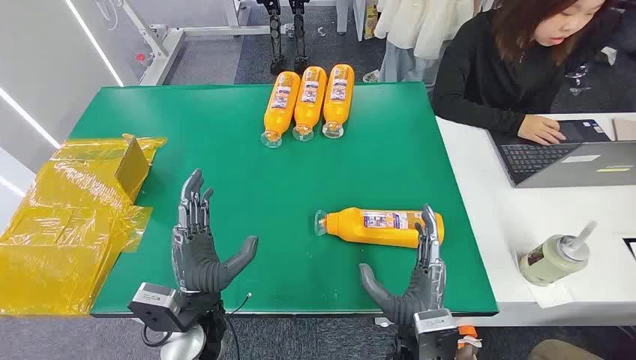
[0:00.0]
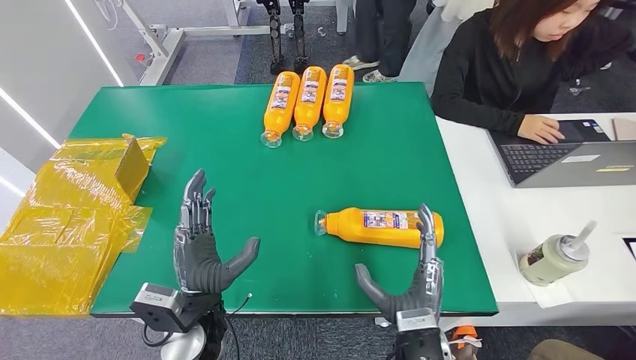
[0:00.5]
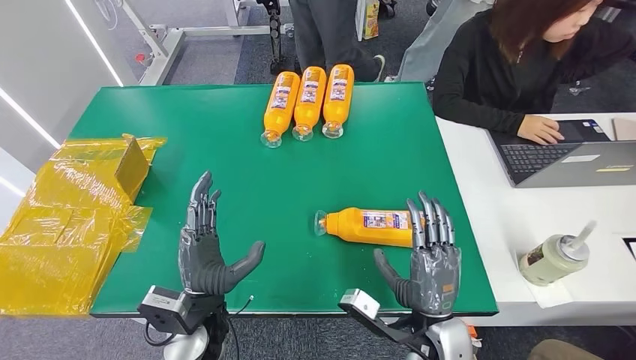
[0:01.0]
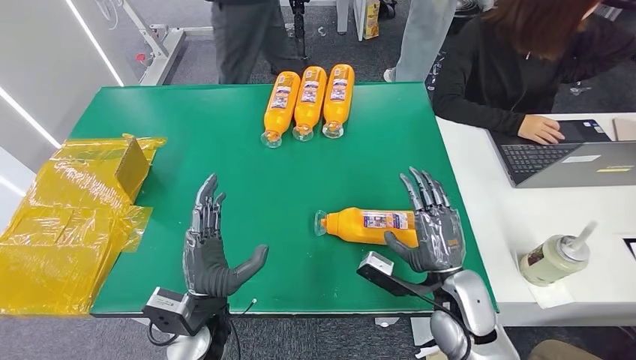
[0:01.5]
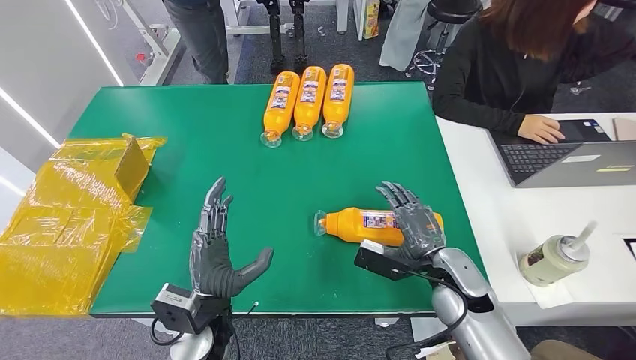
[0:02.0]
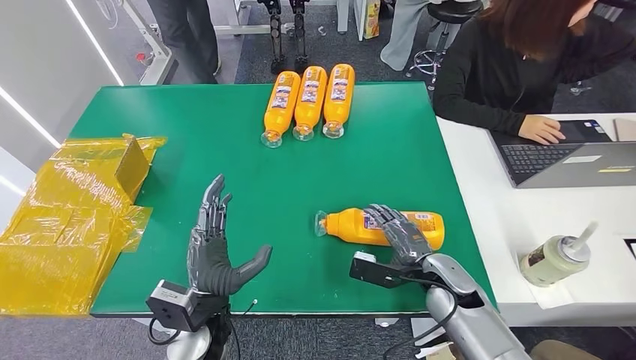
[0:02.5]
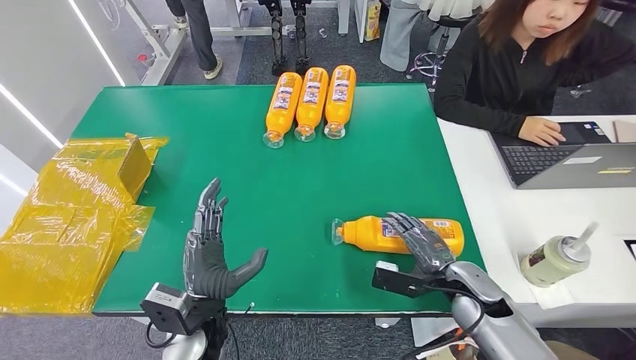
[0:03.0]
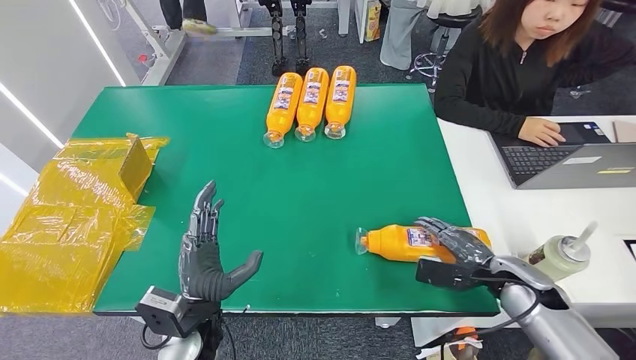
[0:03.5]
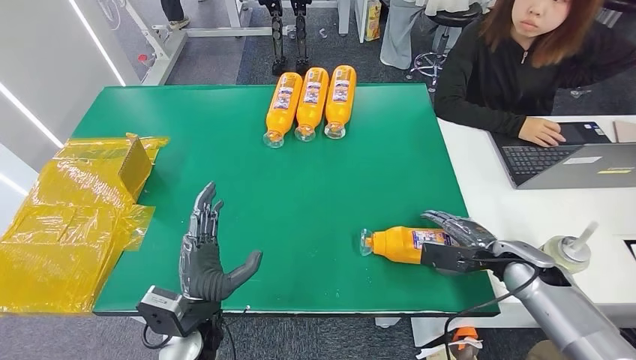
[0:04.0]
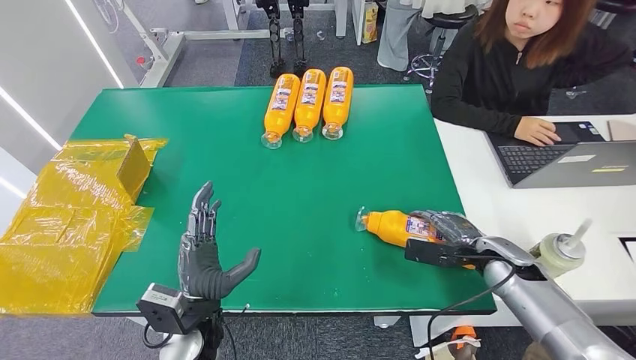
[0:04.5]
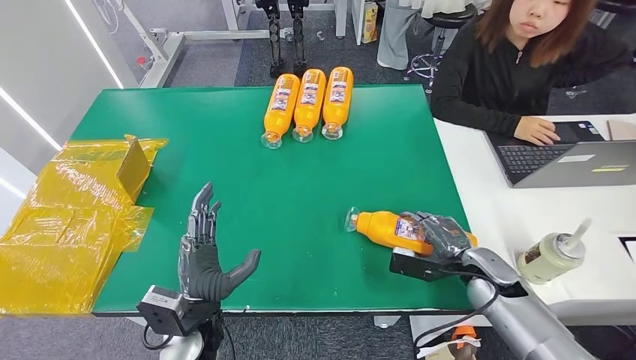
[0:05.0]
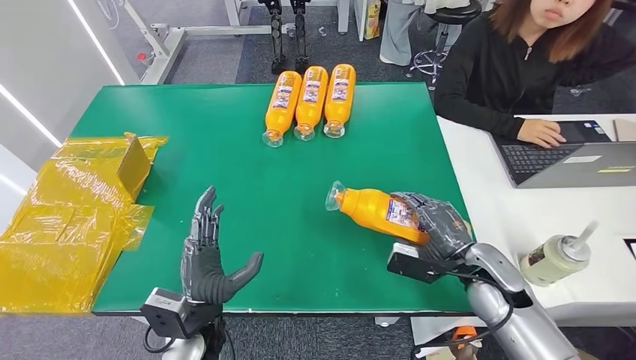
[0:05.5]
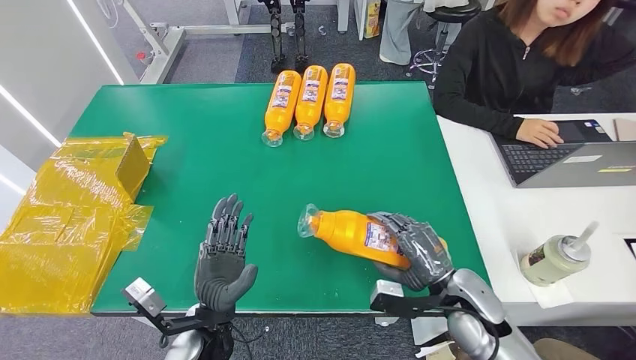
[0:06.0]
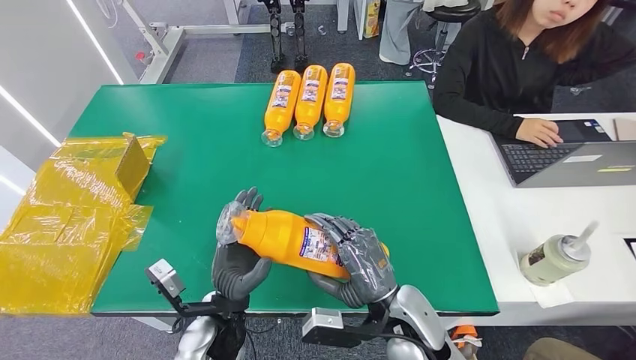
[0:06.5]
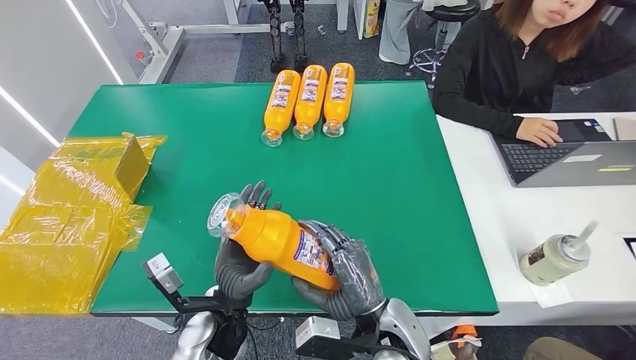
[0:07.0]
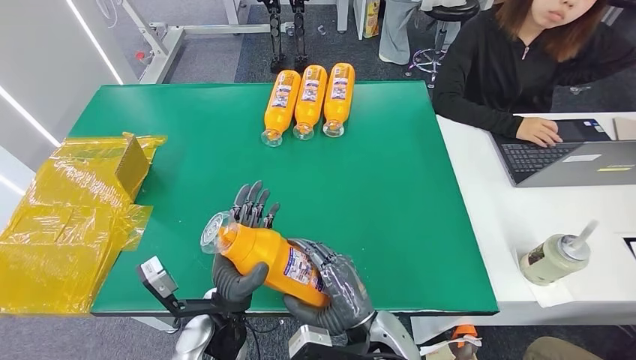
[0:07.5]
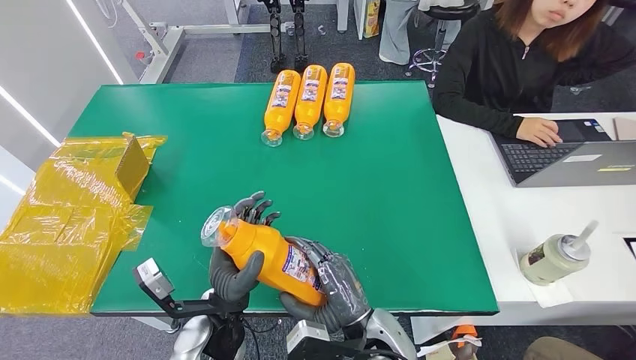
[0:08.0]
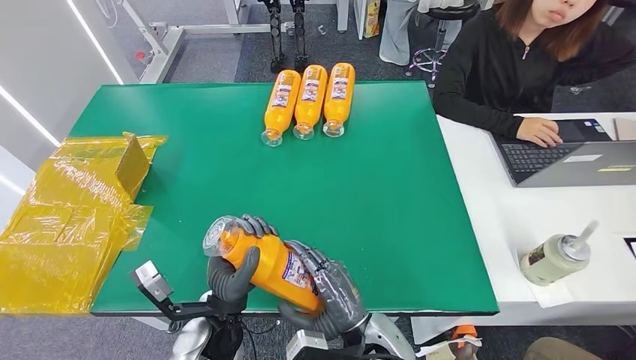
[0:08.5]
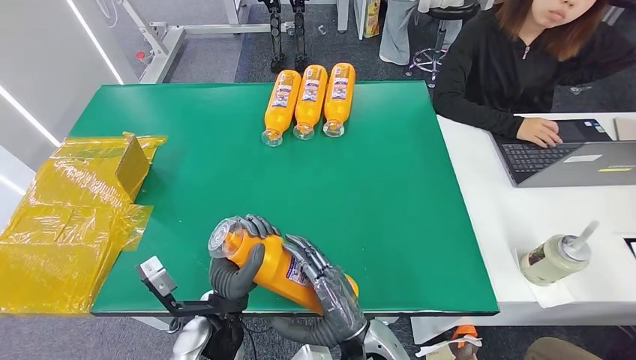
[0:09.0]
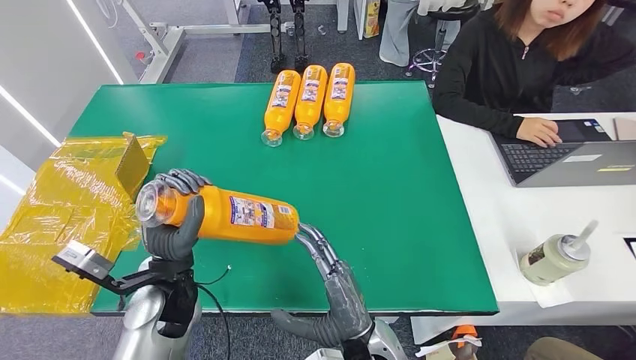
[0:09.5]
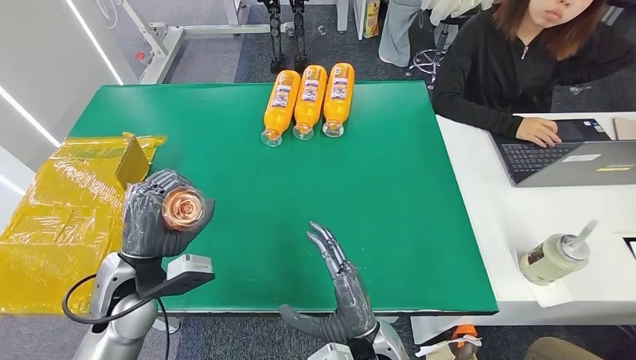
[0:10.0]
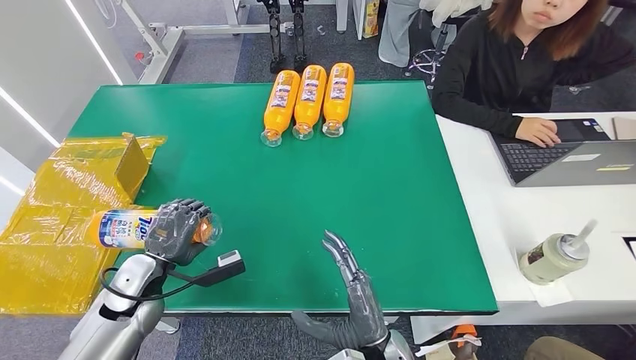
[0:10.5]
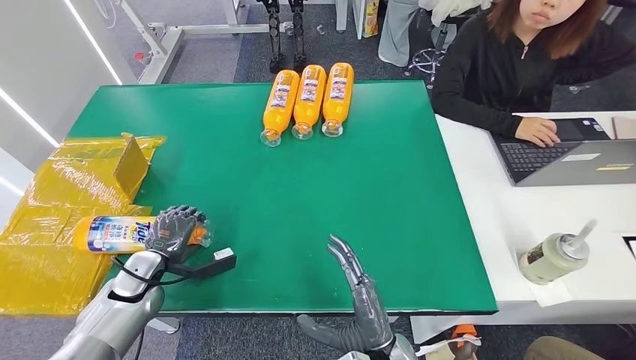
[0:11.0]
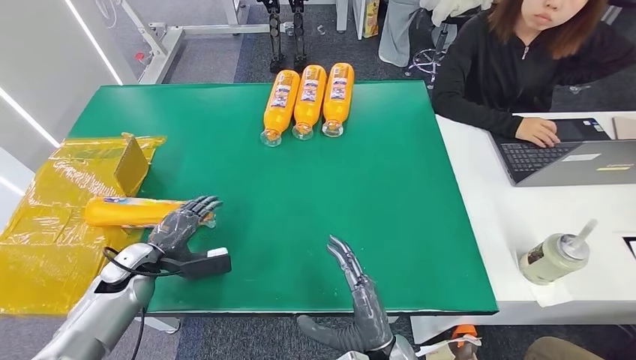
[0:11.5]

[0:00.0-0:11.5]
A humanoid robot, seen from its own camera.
Step, 0:00.0 to 0:05.5: Pick up the bottle from the table.
Step, 0:06.0 to 0:11.5: Turn the bottle to the front side.
0:06.0 to 0:07.5: The right hand moves to the left and backward, approximately 20 cm.
0:07.5 to 0:09.5: The left hand heads to the left and forward, covering approximately 10 cm.
0:09.5 to 0:11.5: The left hand is displaced to the left and downward by about 20 cm.

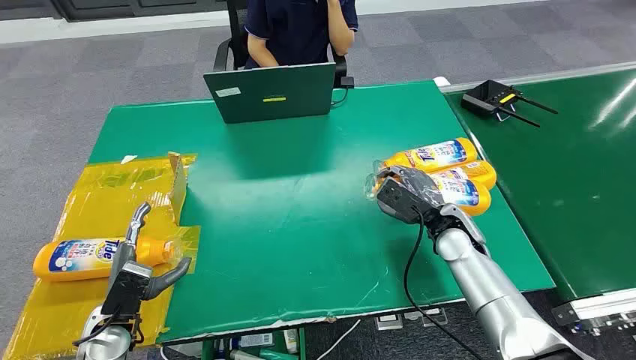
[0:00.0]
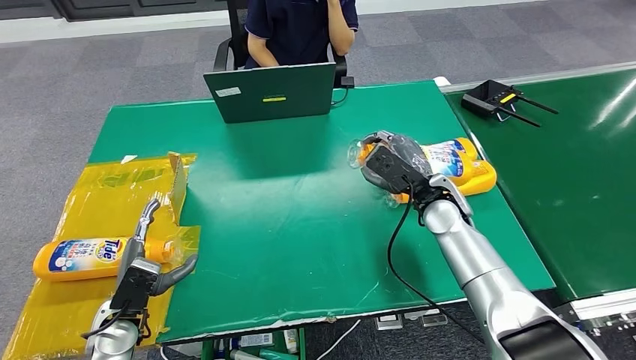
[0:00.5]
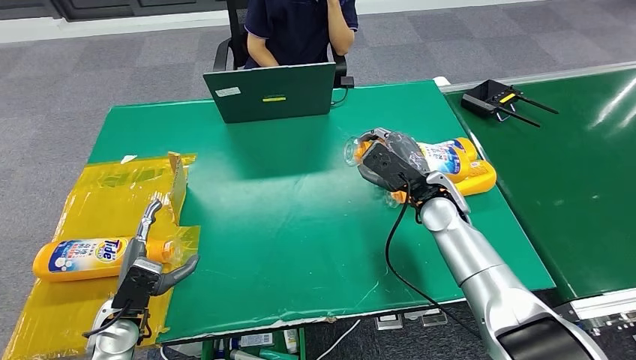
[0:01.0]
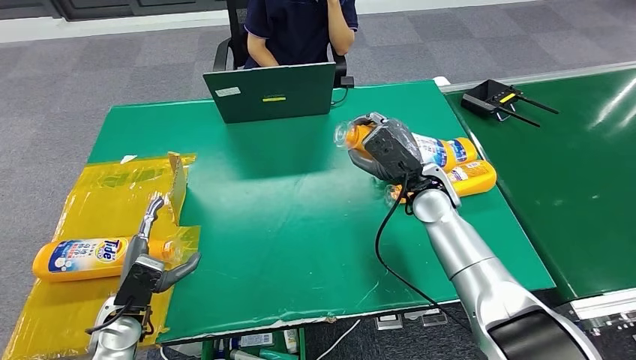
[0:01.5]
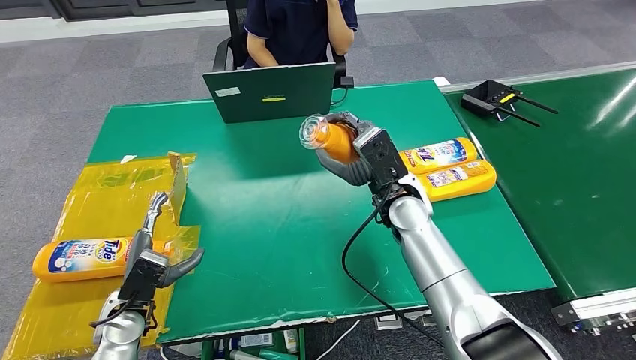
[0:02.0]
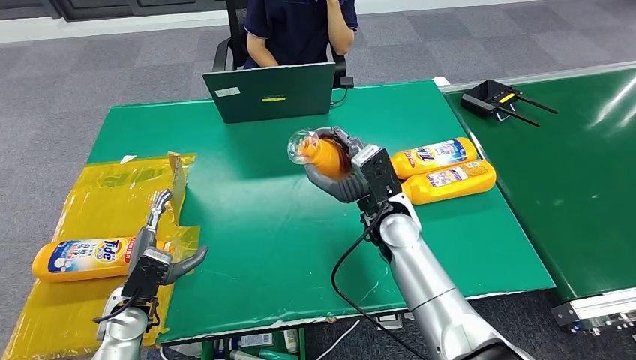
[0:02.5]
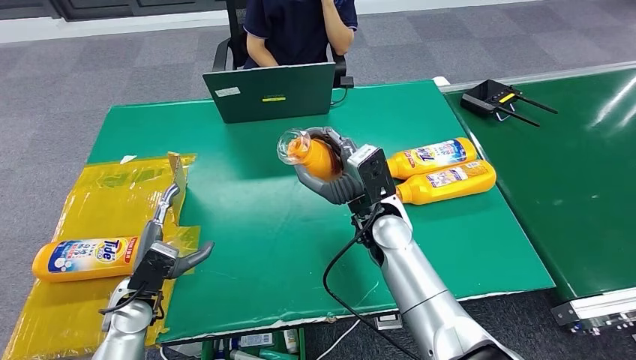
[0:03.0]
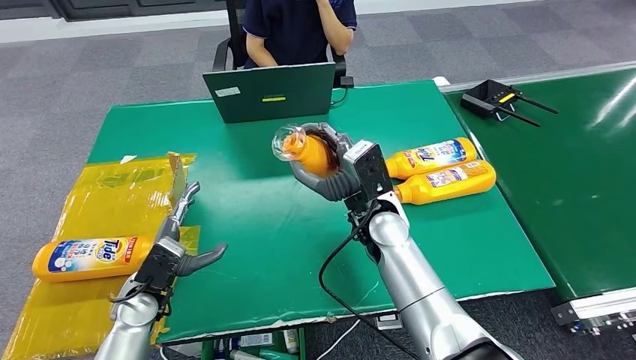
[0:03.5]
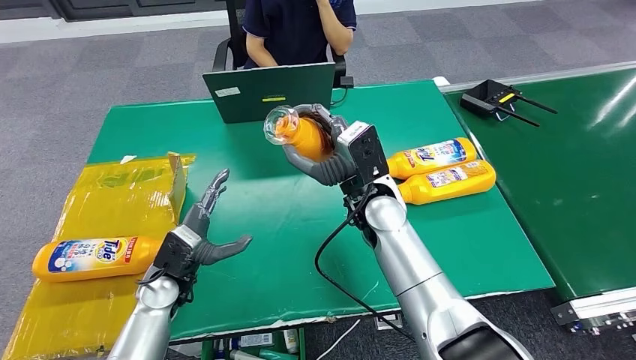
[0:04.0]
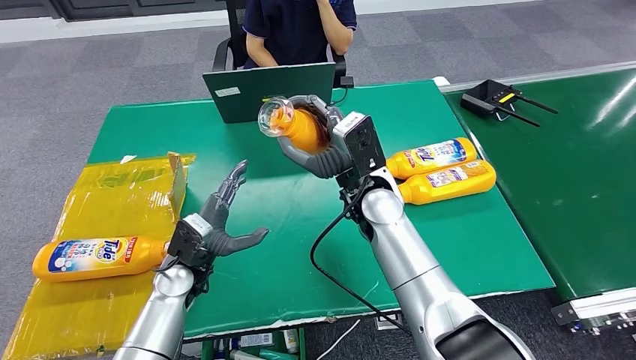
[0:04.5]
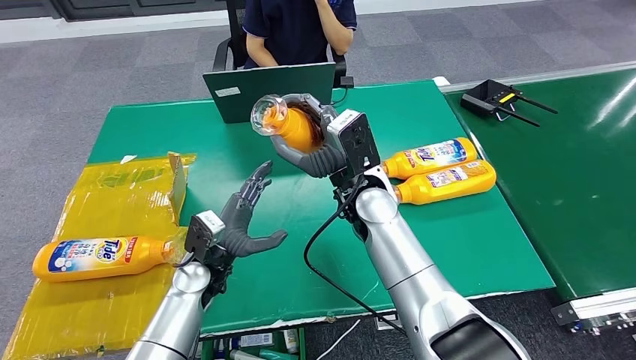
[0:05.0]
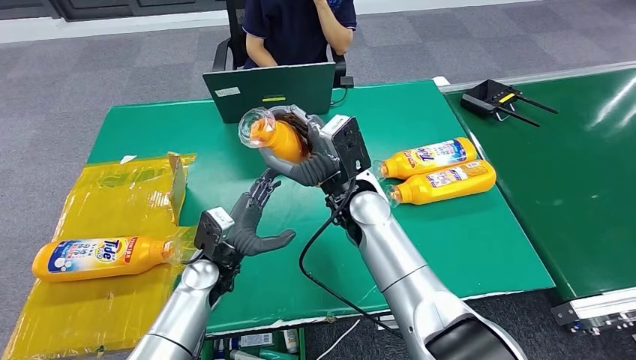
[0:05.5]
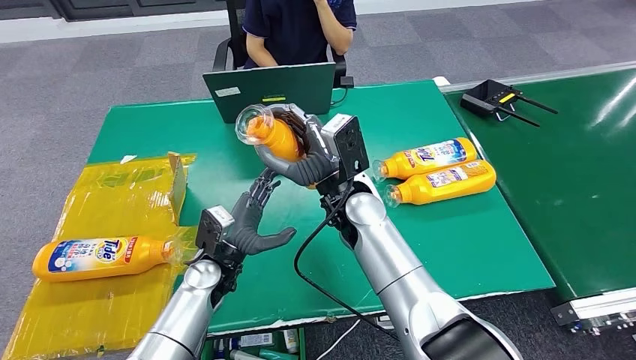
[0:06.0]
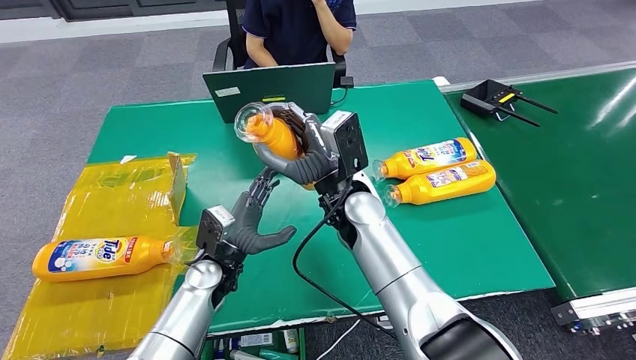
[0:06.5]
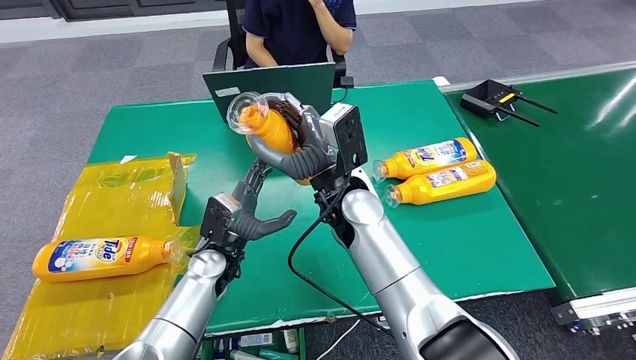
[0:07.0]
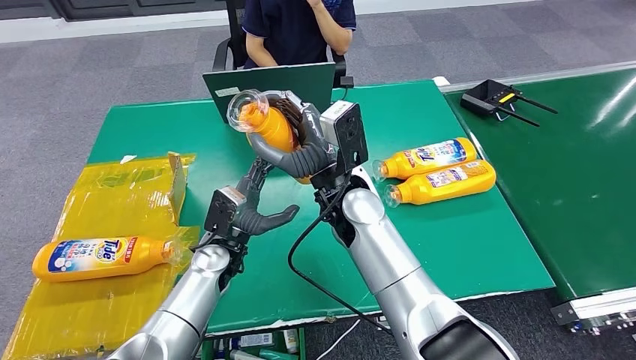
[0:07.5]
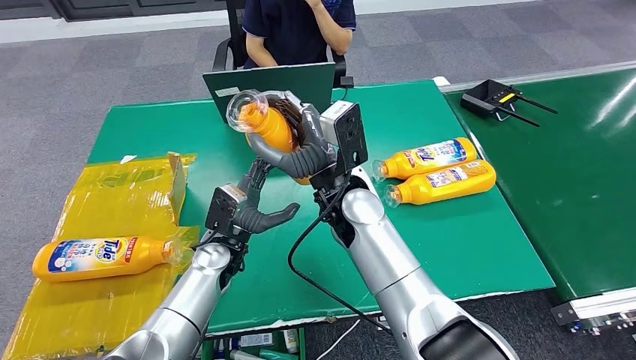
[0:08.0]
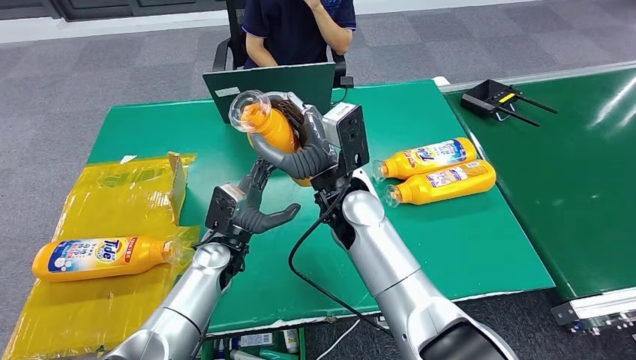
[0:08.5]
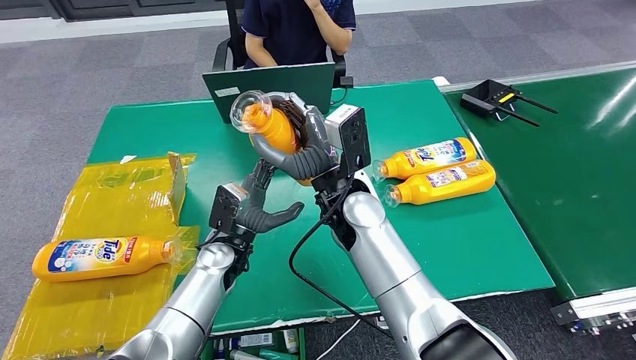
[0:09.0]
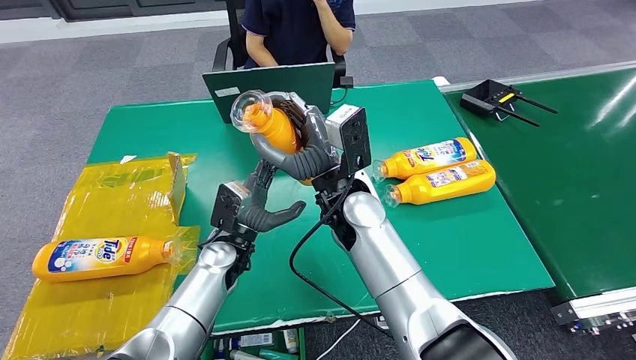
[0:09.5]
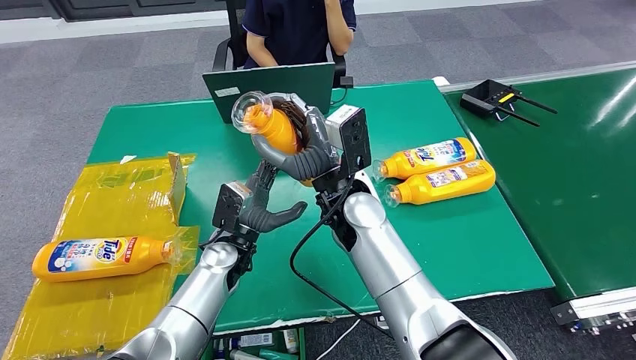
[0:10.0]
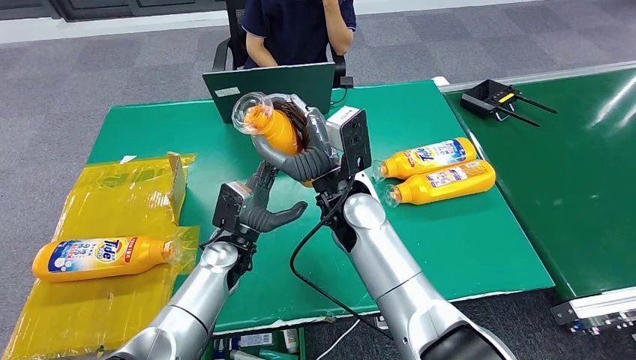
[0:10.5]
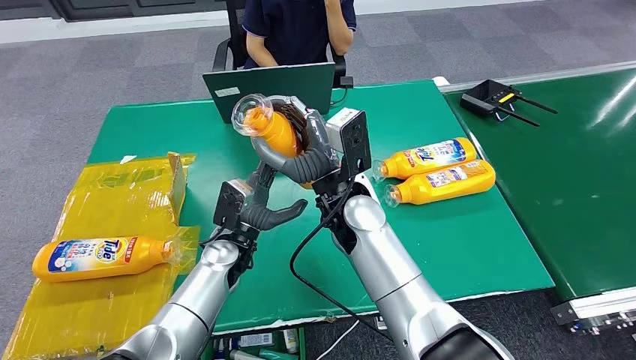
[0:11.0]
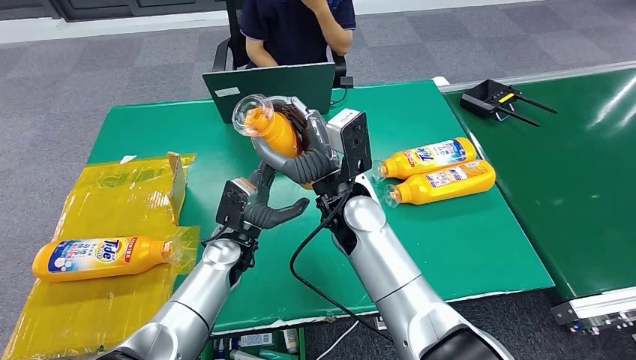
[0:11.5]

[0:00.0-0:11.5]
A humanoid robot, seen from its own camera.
Step, 0:00.0 to 0:06.0: Pick up the bottle from the table.
0:02.0 to 0:04.0: The left hand shifts some 10 cm to the right and forward. Meanwhile the right hand goes about 5 cm to the left.
0:04.0 to 0:06.0: The left hand goes roughly 10 cm to the right.
0:06.0 to 0:09.5: There are only small adjustments of the hands.
0:09.5 to 0:11.5: Both hands stay about where they are.
